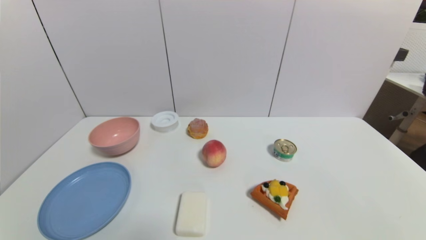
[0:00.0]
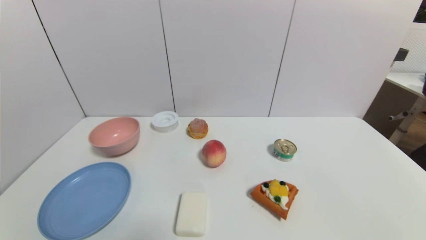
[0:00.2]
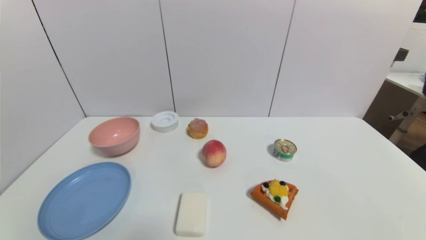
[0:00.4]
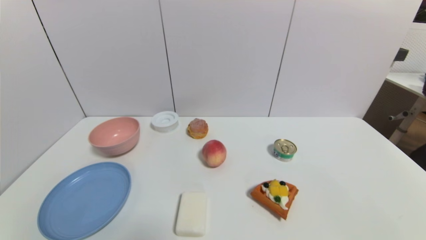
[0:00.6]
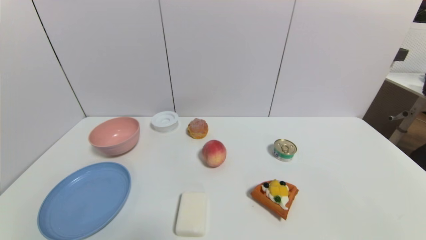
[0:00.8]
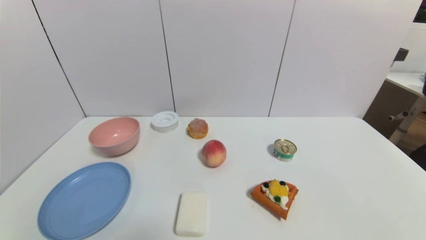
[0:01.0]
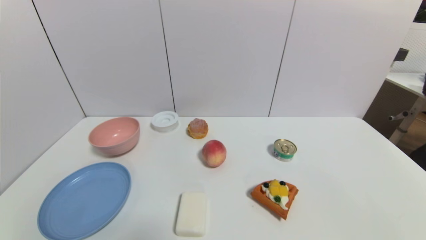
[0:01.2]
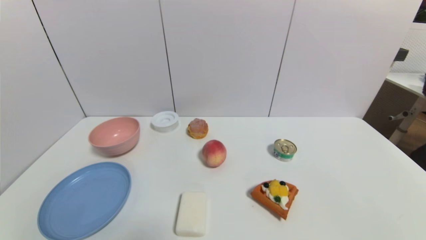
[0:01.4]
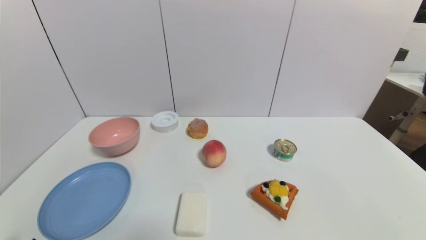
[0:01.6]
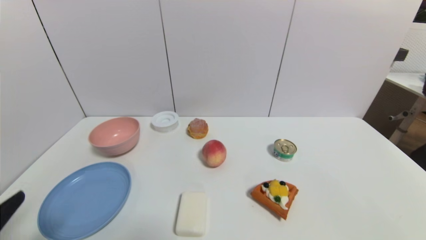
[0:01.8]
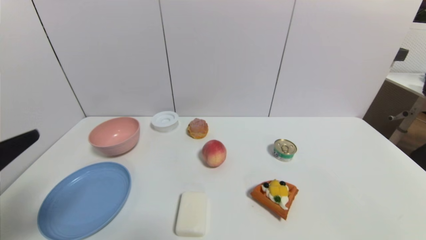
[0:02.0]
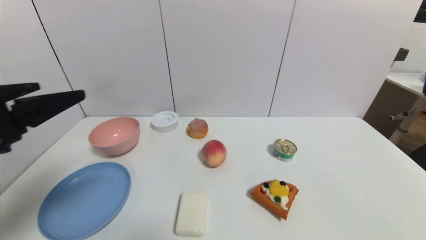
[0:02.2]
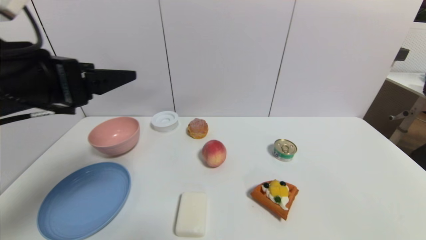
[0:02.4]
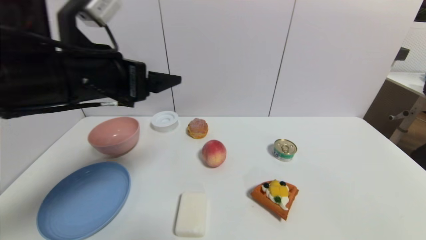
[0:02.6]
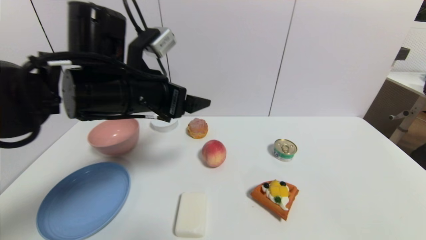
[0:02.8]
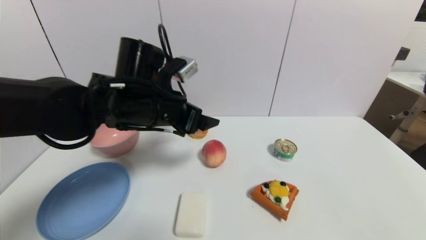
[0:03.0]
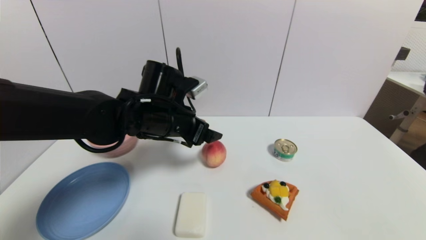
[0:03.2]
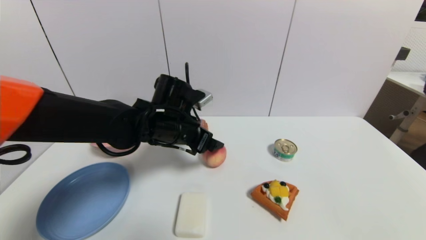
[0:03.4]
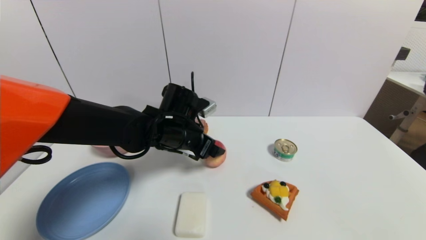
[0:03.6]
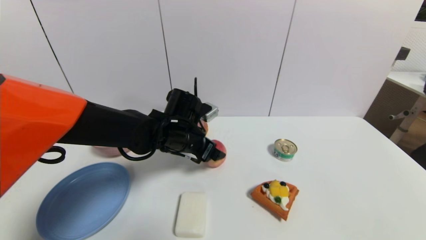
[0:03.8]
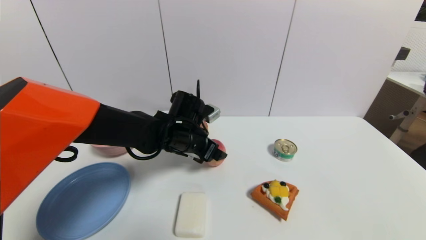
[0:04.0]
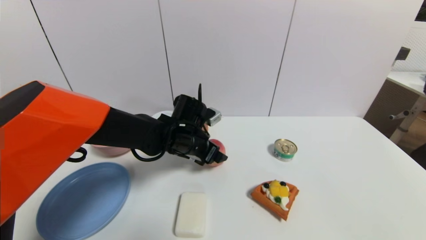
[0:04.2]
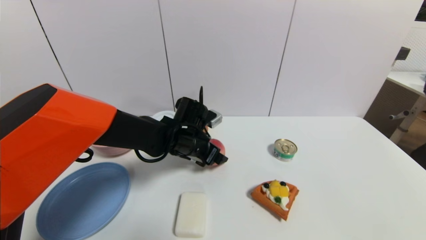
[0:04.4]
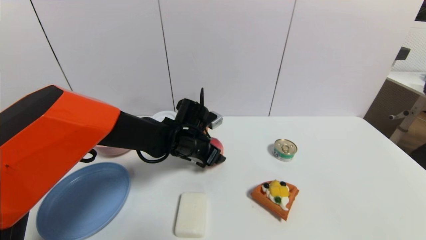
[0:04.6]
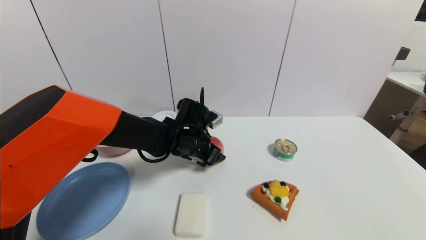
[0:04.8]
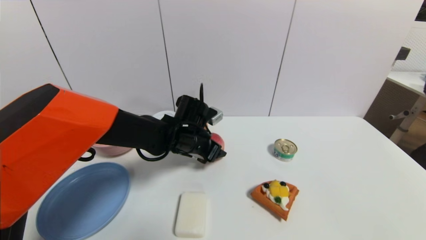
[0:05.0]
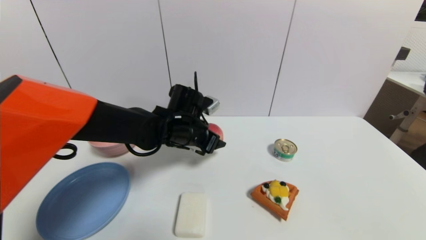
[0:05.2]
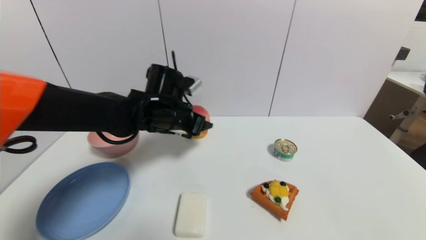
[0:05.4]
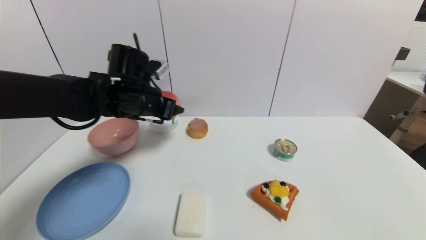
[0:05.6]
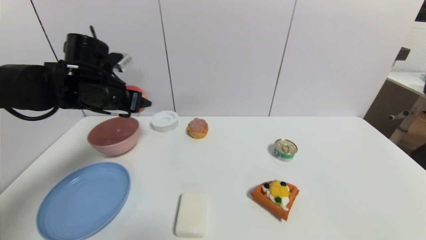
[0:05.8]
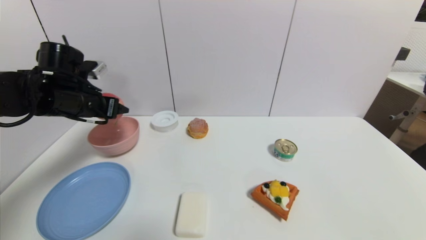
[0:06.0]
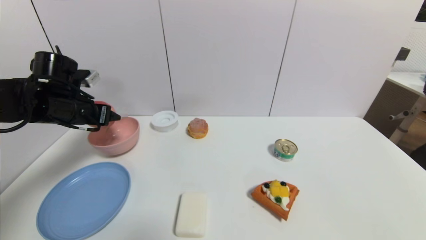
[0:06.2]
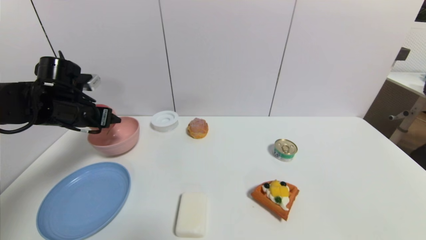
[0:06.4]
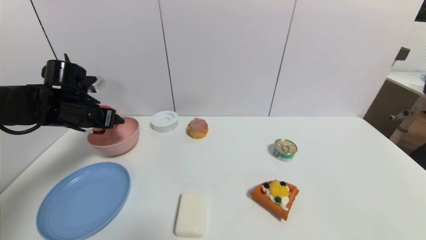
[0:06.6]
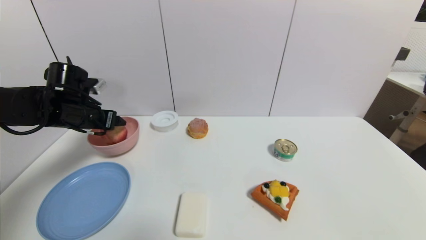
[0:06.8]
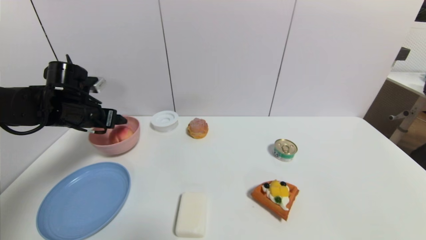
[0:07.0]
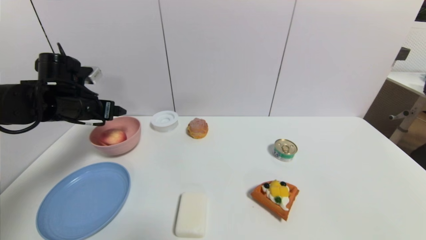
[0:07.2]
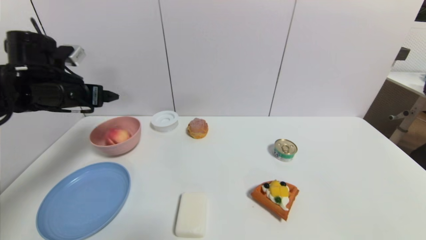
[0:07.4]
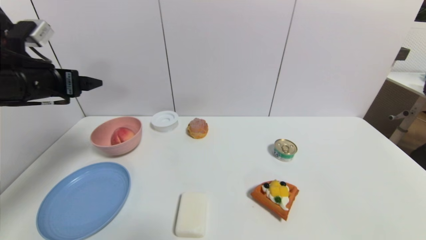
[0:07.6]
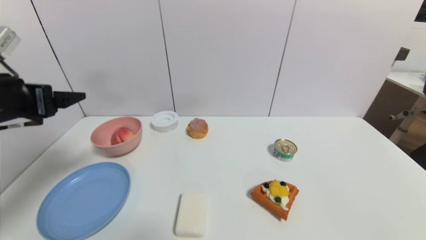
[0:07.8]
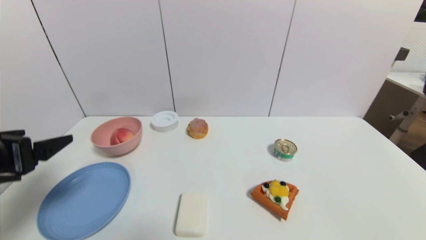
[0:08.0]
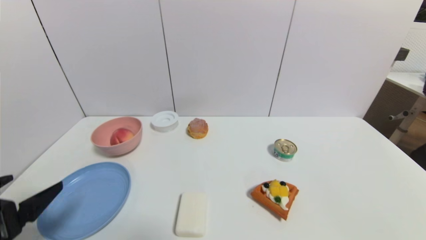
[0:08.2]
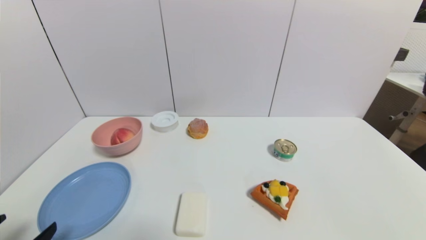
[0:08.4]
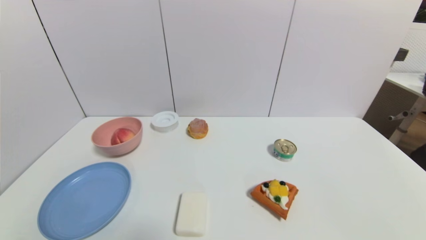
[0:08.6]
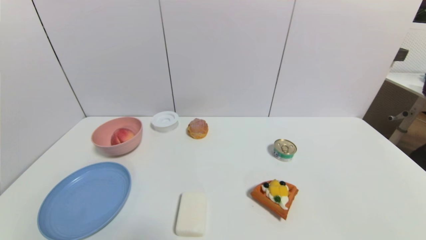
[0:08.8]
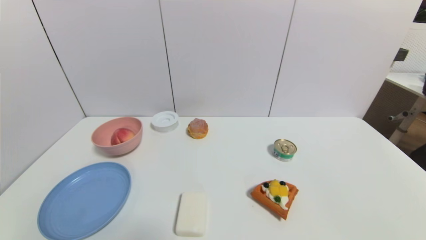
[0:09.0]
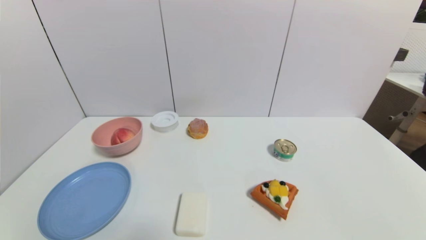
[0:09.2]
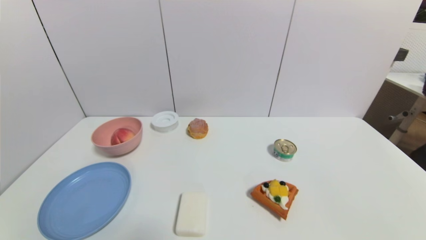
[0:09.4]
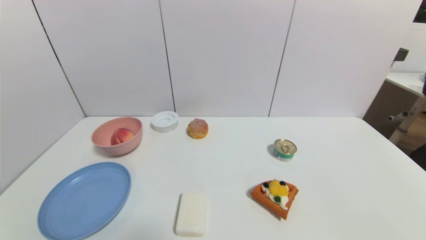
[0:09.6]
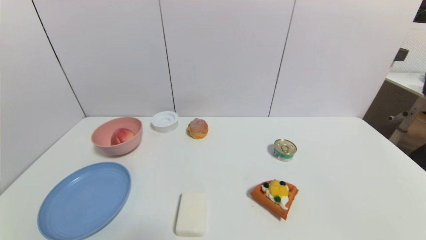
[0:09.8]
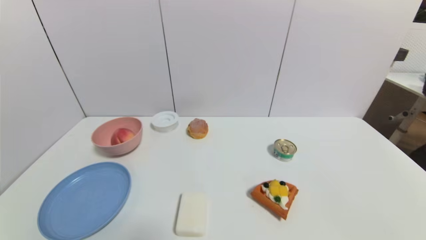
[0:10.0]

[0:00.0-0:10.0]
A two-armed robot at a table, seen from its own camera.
Task of the whole recording: use a gripper to pick the target object and place on the pink bowl.
Step, 0:00.0 to 0:04.8: Grasp the peach with the left gripper.
Step, 0:05.0 to 0:07.0: Place the peach on the pink bowl with the left gripper.
0:00.0 to 0:01.4: The two grippers keep their place.
0:01.4 to 0:02.8: The left gripper moves forward, upward and to the right, about 40 cm.
0:02.8 to 0:04.2: The left gripper is displaced downward, forward and to the right by roughly 20 cm.
0:04.2 to 0:05.8: The left gripper shifts some 20 cm to the left and upward, and closes up.
0:05.8 to 0:07.2: The left gripper goes some 5 cm to the left, and opens.
0:07.2 to 0:08.6: The left gripper moves backward, roughly 35 cm.

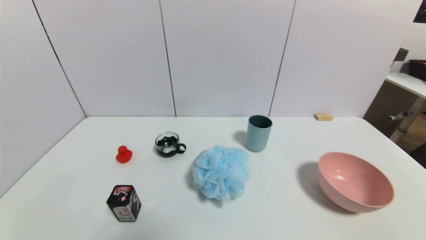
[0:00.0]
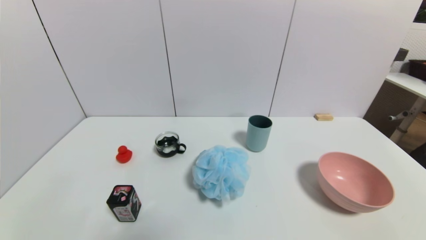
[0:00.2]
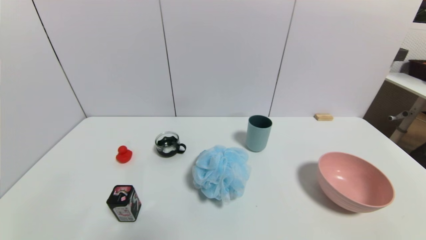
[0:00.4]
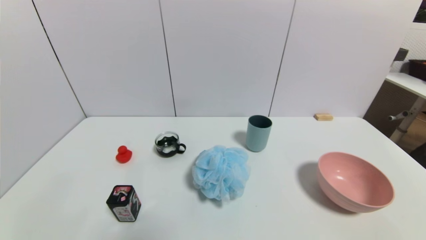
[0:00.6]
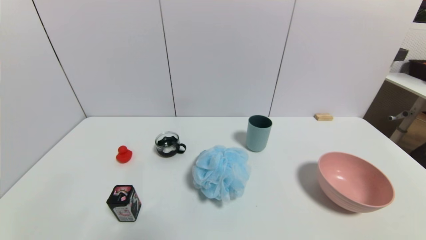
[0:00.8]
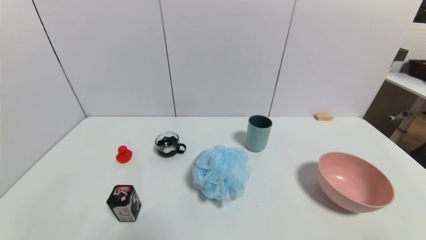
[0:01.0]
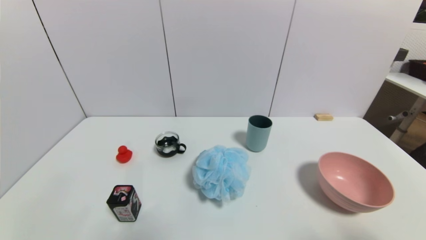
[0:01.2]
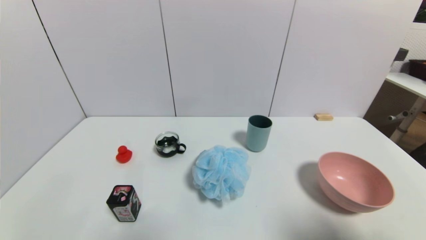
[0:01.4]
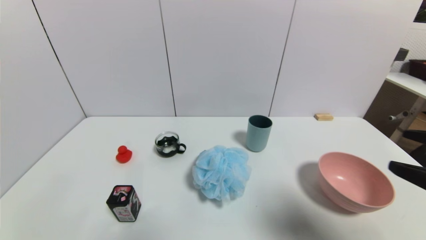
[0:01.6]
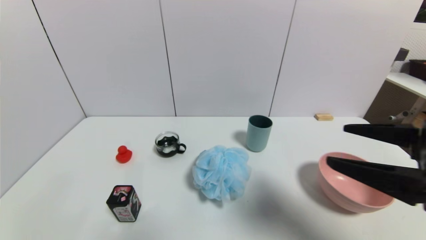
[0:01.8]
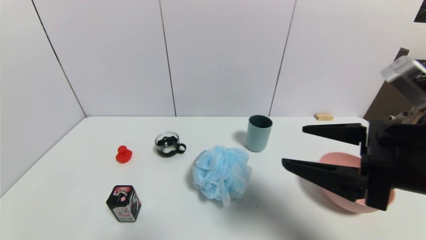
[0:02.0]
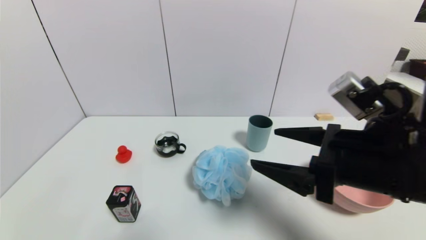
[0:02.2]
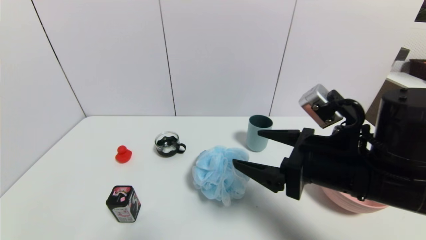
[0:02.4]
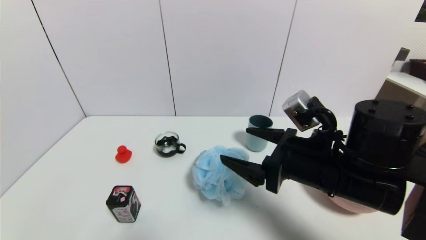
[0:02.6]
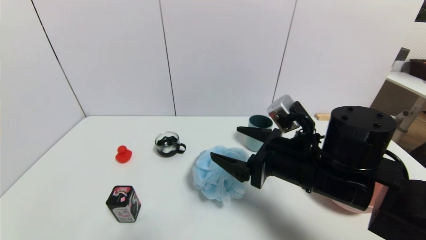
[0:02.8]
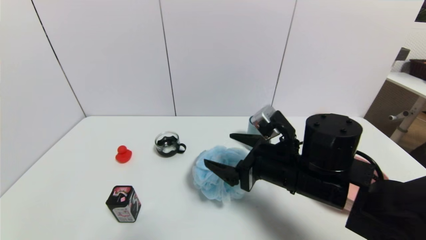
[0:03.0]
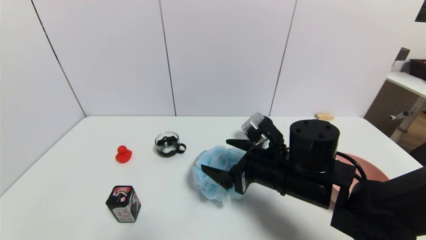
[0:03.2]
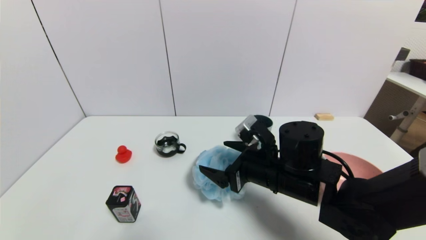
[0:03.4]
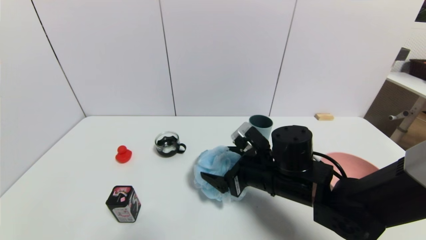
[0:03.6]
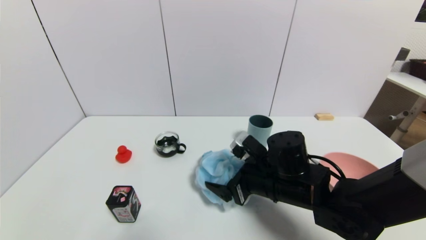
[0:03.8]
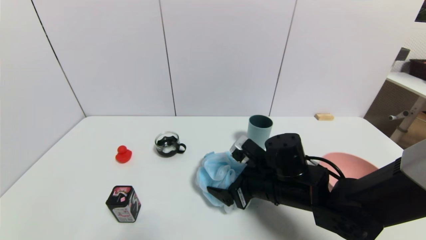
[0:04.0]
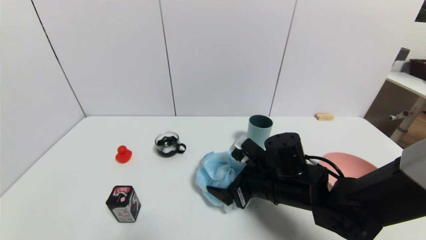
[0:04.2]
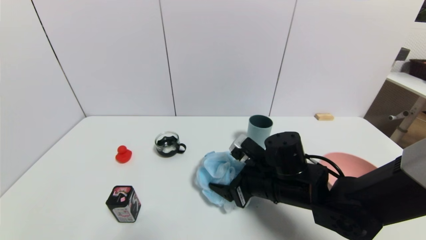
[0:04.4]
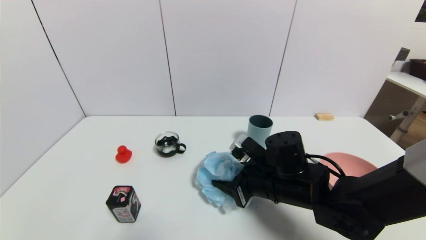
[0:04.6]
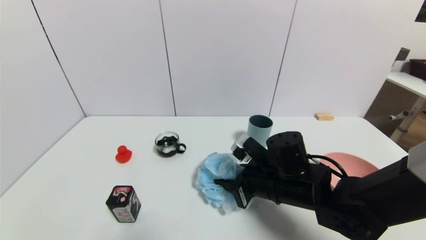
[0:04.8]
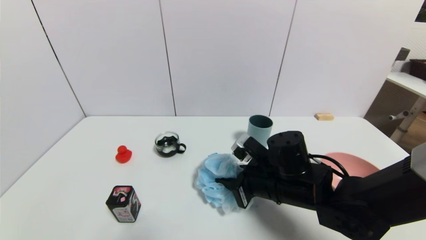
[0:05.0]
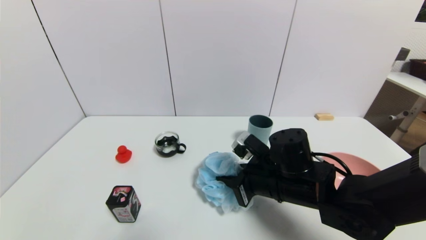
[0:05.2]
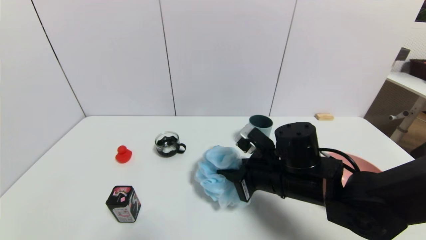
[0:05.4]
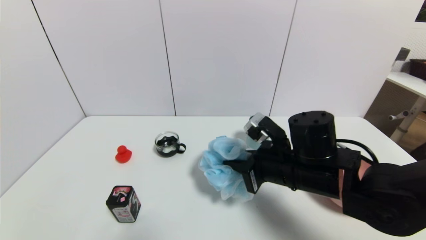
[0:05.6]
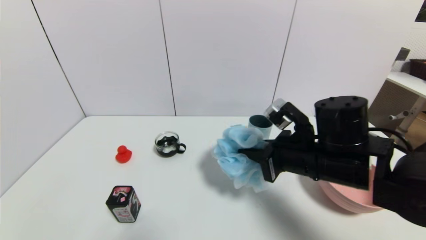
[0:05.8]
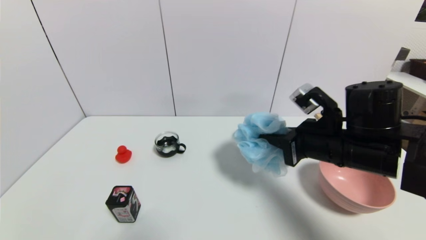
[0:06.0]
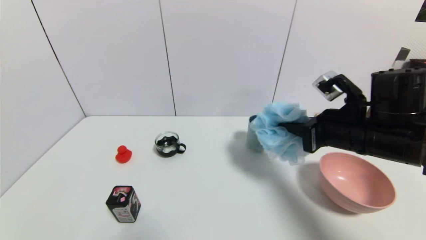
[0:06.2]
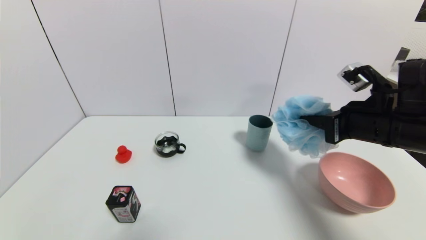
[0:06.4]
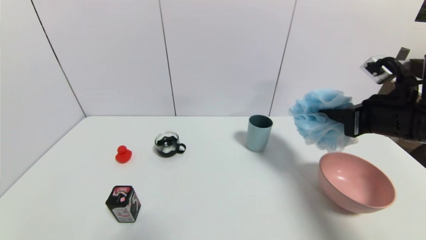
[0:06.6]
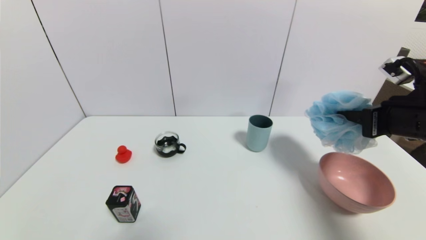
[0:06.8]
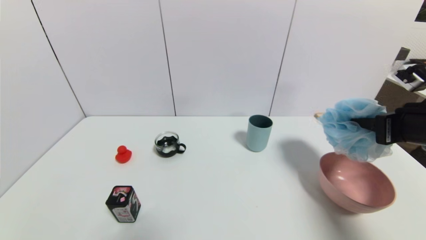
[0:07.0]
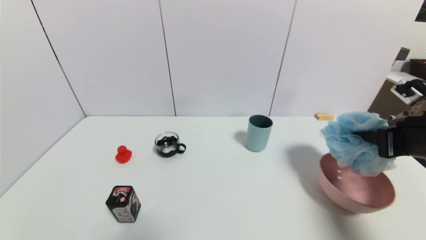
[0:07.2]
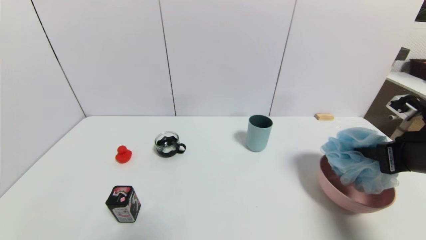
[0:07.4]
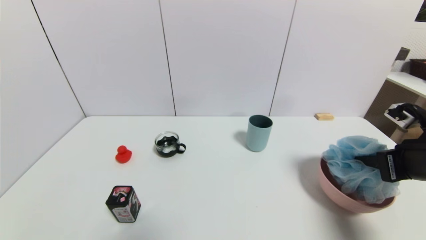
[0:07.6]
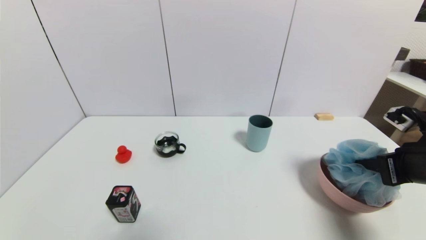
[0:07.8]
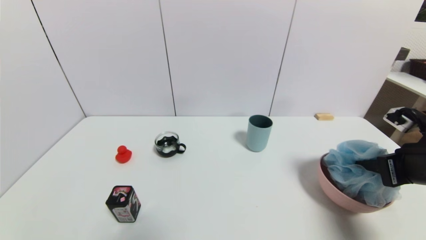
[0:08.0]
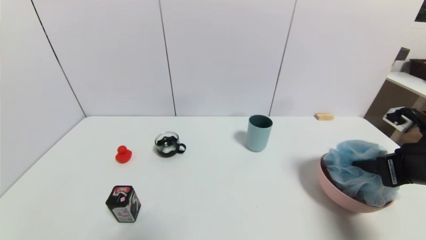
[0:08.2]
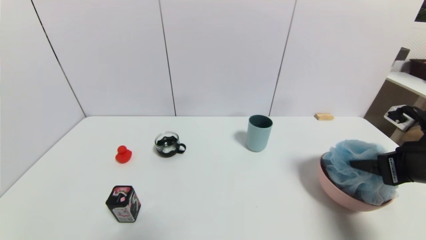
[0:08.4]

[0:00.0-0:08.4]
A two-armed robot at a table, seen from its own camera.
Task of the whole recording: use a gripper to pick the target object and place on the pink bowl.
Step, 0:00.0 to 0:05.0: Grasp the shower sphere with the right gripper.
0:00.0 to 0:01.4: The right gripper heads upward, covering about 20 cm.
0:01.4 to 0:02.8: The right gripper goes about 25 cm to the left, forward and downward.
0:02.8 to 0:04.2: The right gripper heads downward, covering roughly 10 cm.
0:04.2 to 0:05.6: The right gripper shifts about 5 cm upward, and closes up.
0:05.6 to 0:07.0: The right gripper heads to the right and upward, covering roughly 20 cm.
0:07.0 to 0:08.4: The right gripper opens up.
